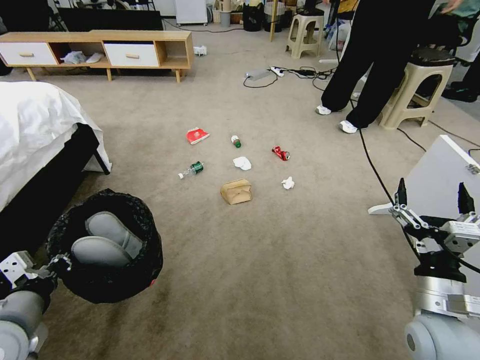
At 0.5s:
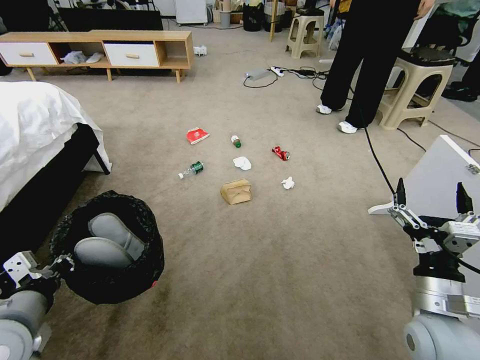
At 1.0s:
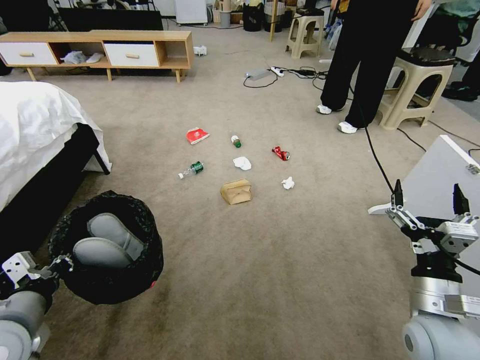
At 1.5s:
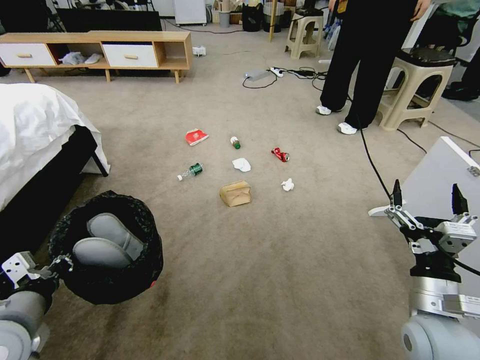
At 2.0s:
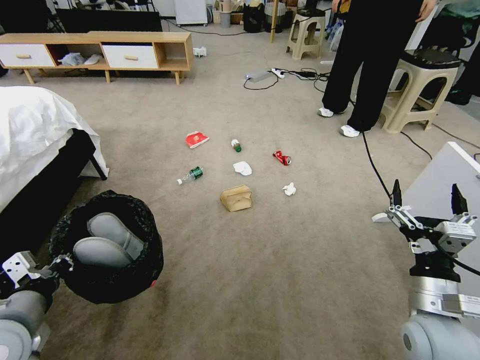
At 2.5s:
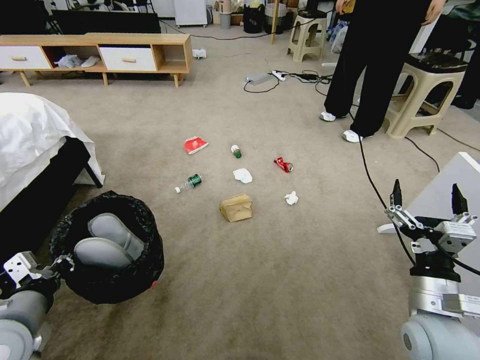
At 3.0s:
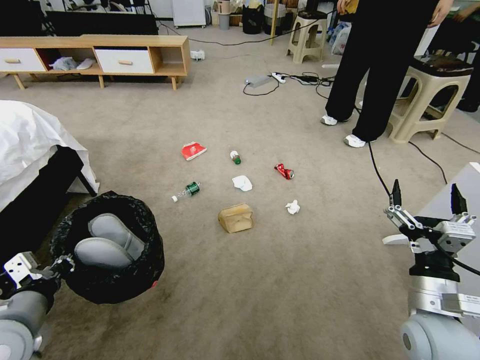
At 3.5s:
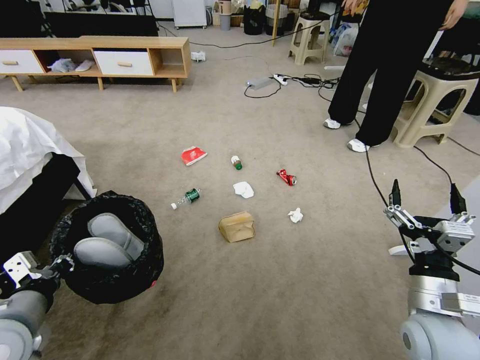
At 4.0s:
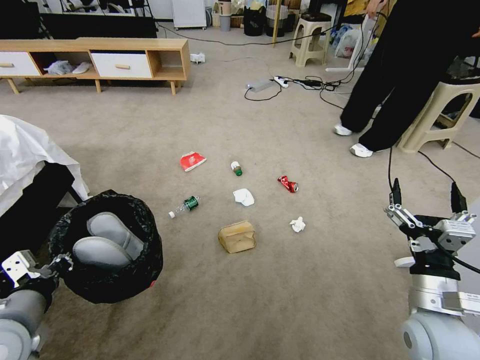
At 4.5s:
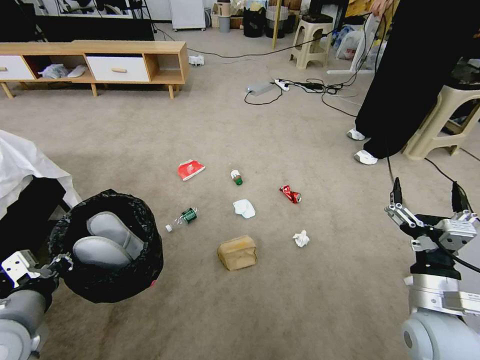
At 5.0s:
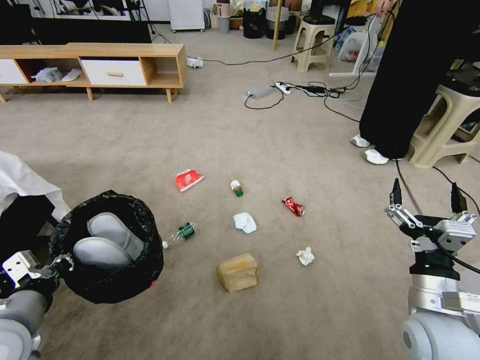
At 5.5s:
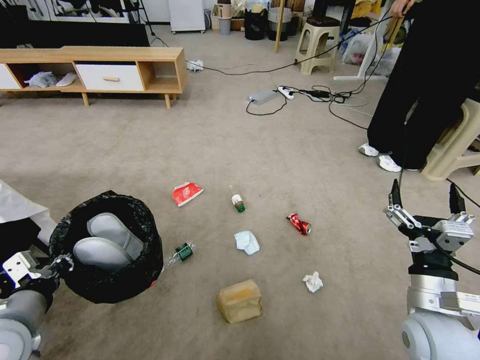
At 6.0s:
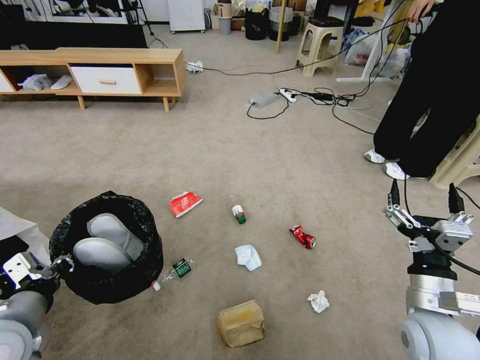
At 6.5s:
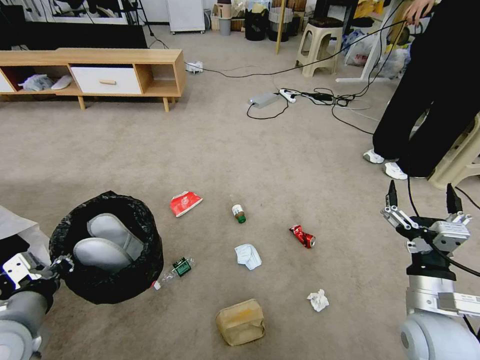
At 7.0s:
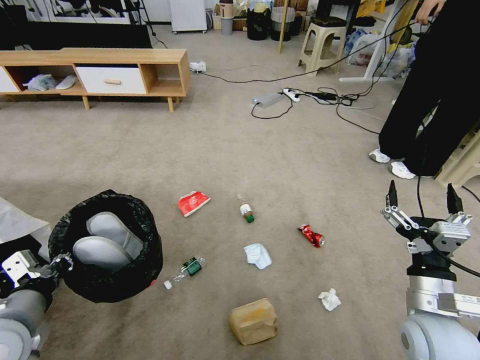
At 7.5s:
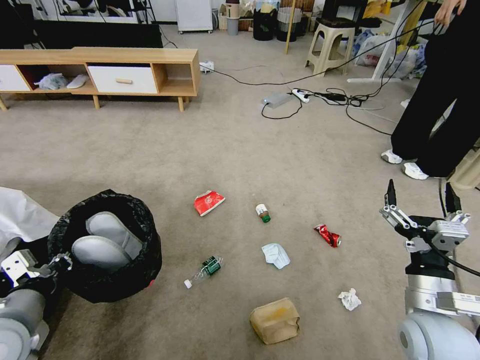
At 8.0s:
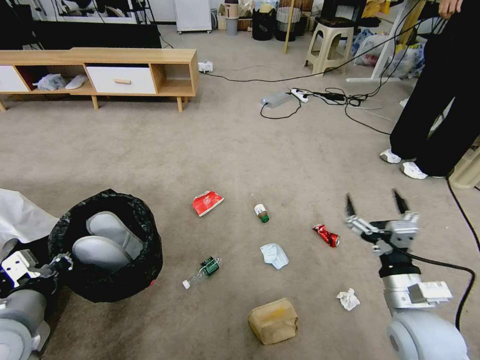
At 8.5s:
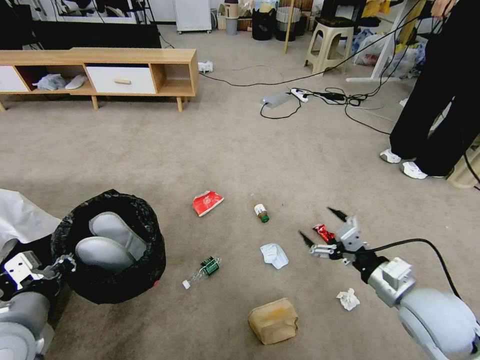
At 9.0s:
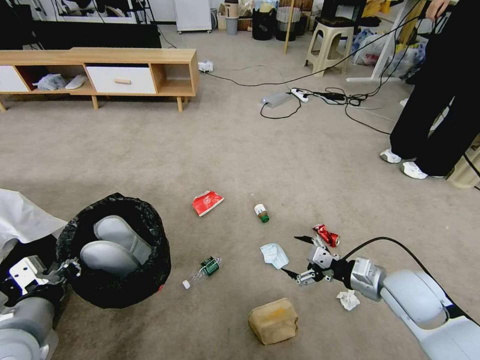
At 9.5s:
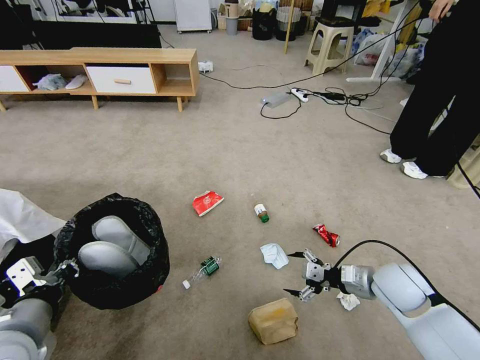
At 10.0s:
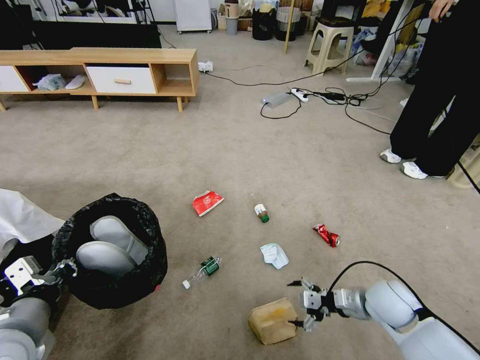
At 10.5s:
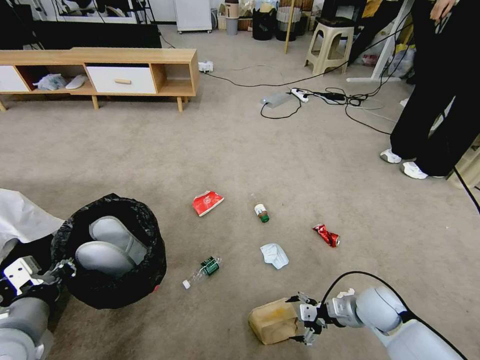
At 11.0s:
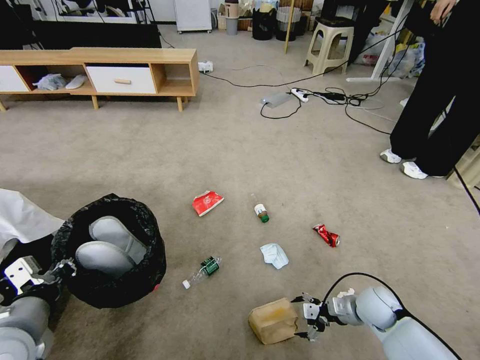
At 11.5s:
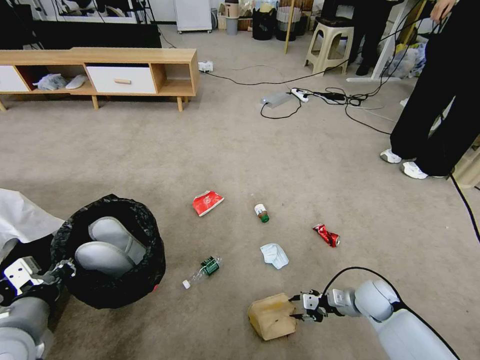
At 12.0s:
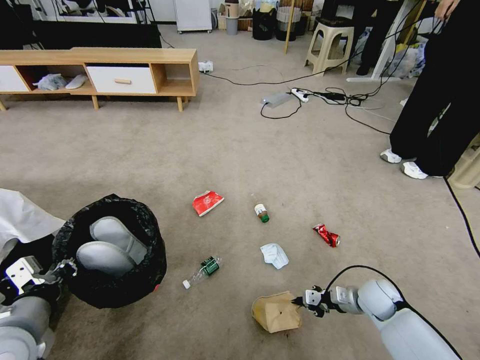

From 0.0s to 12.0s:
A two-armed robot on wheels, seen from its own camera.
Task of the whole recording: Pick up the trash bin and place the garbage on the floor into it.
From 8.0s to 10.0s: The right gripper goes approximately 10 cm forward and downward.
From 10.0s to 12.0s: The right gripper moves downward, about 10 cm, and closes its fingers.

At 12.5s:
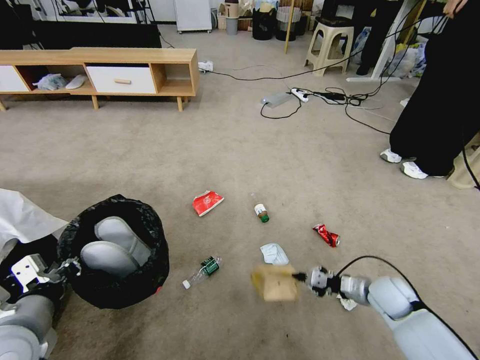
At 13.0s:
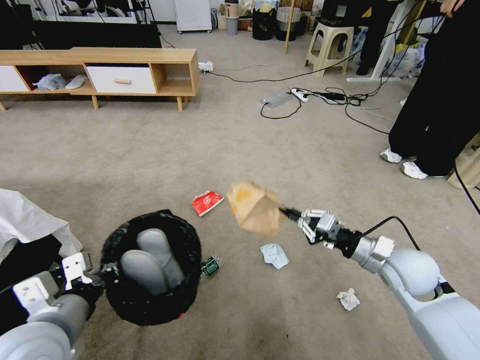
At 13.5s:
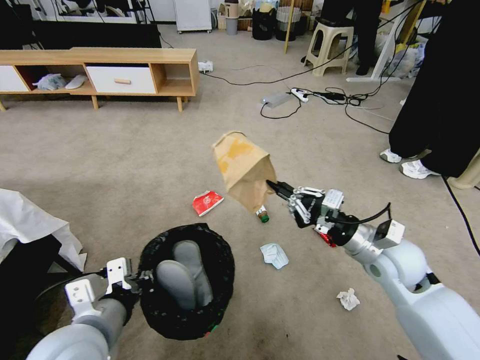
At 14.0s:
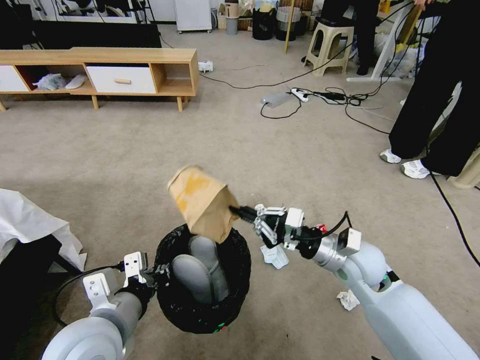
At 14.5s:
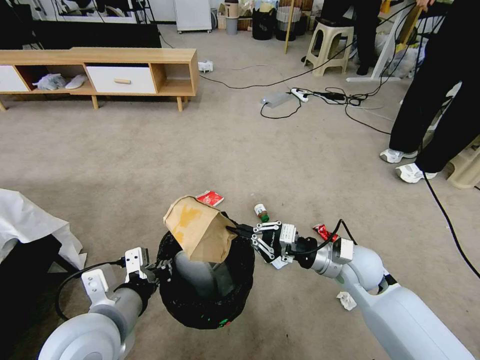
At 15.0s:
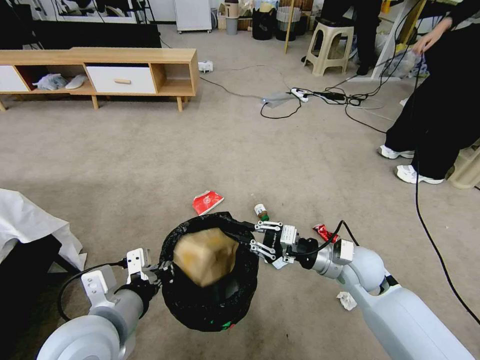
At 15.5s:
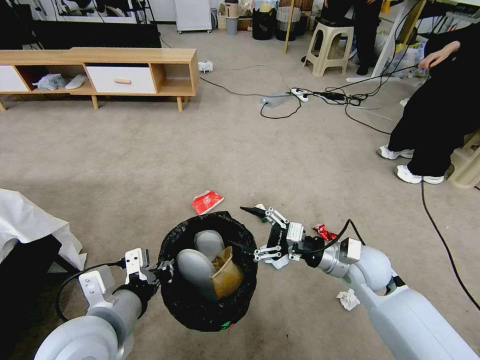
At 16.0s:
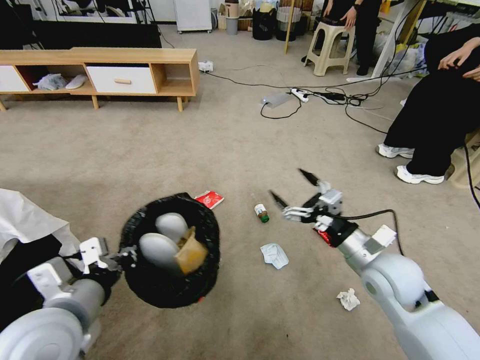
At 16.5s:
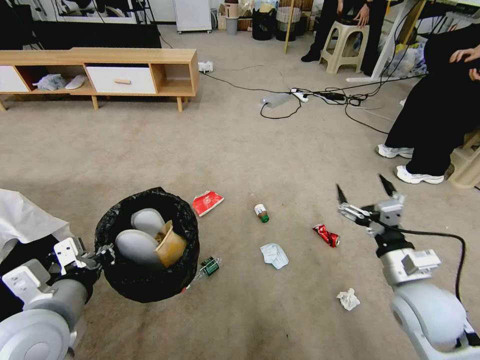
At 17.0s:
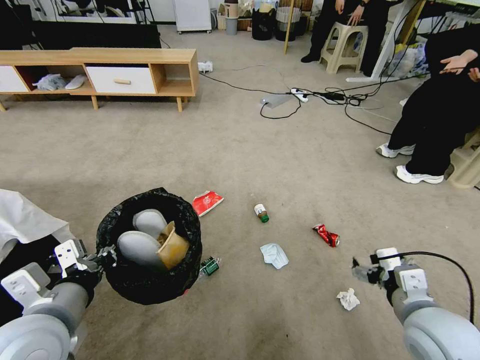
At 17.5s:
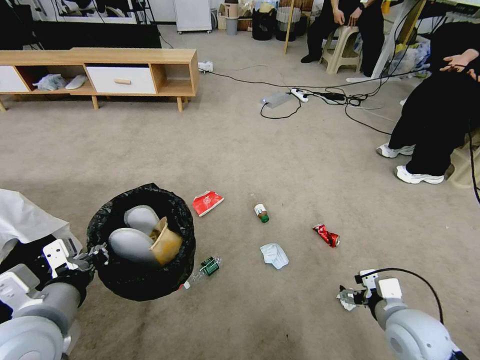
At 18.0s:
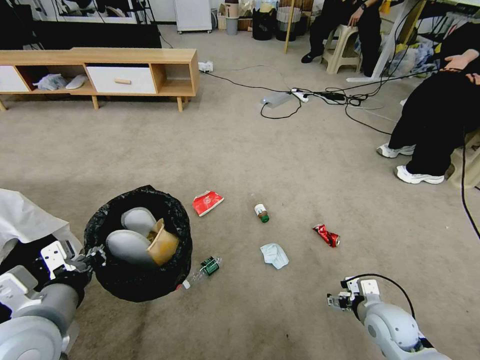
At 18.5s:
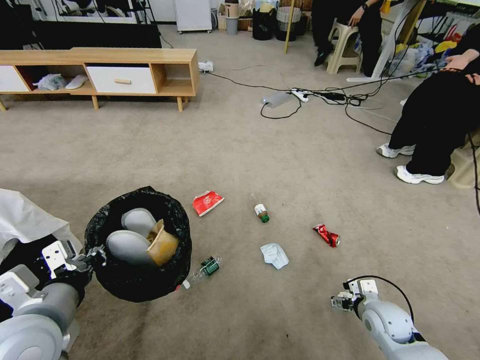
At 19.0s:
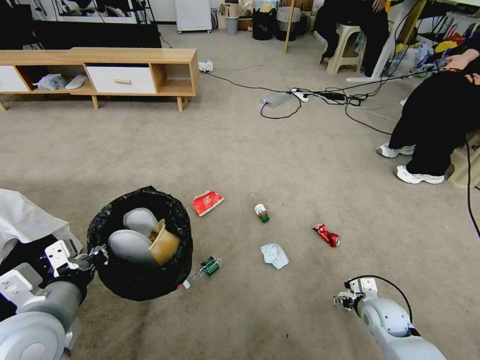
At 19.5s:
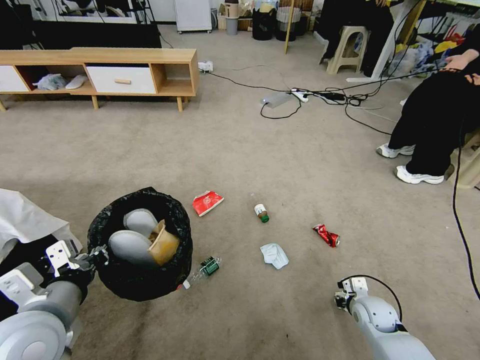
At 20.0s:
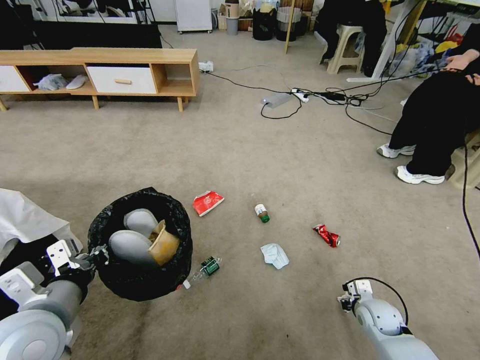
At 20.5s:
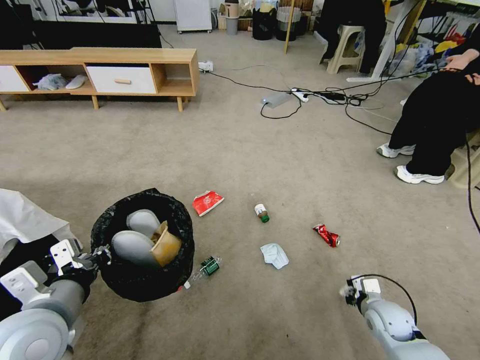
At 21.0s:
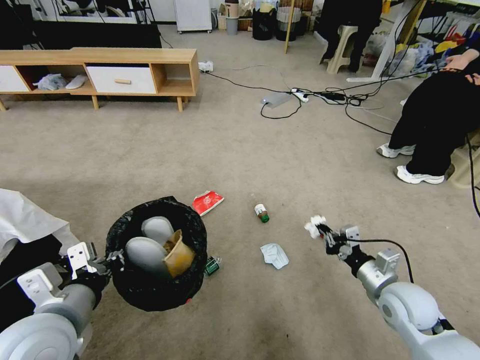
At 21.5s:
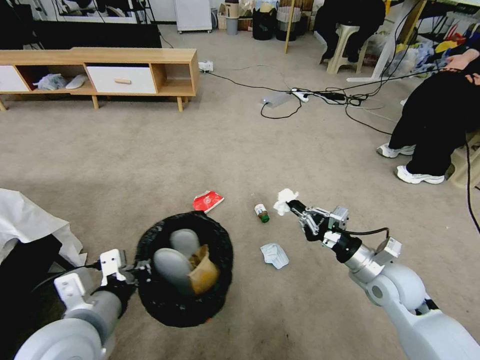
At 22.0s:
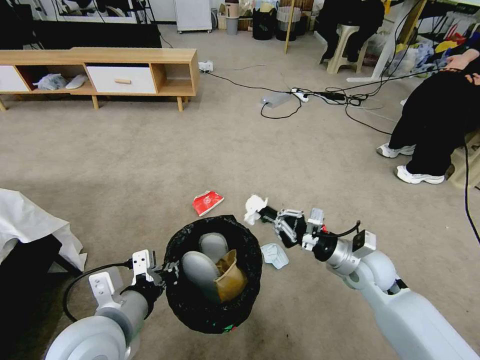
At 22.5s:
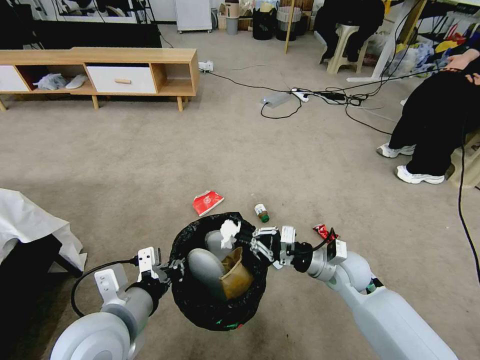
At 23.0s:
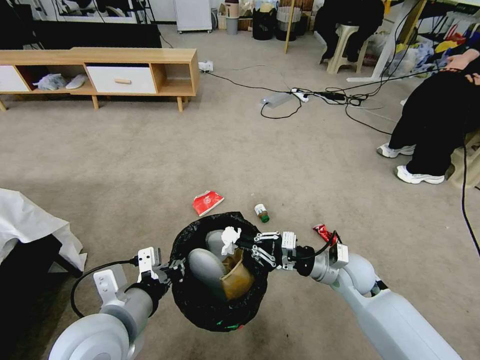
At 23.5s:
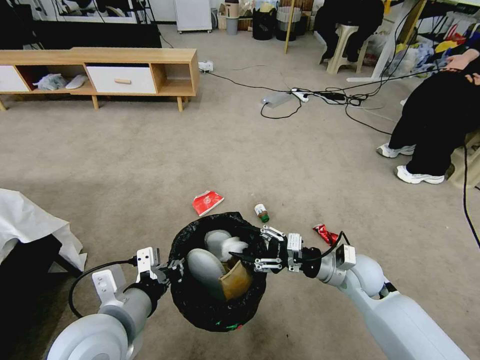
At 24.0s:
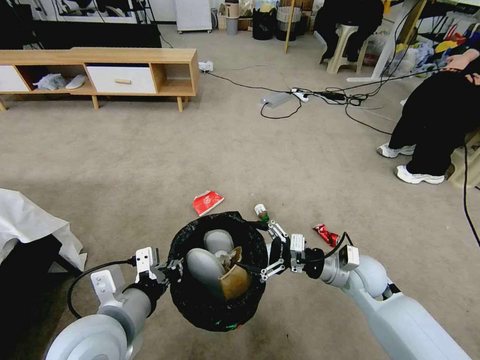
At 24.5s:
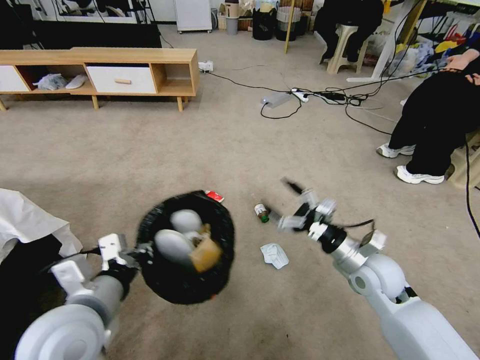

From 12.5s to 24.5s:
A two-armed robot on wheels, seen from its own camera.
Task of the whole recording: Pick up the trash bin and place the garbage on the floor into it.
From 12.5s to 14.5s: The left gripper travels to the right by about 10 cm, while the right gripper travels to the left and upward by approximately 15 cm.
From 14.5s to 16.5s: The right gripper moves backward and to the right, some 10 cm, and opens up. Meanwhile the left gripper moves to the left, approximately 5 cm.
From 16.5s to 18.5s: The right gripper shifts roughly 20 cm downward.
From 18.5s to 20.5s: The right gripper closes.
From 20.5s to 22.5s: The left gripper goes some 10 cm to the right, while the right gripper shifts roughly 20 cm to the left, upward and forward.
From 22.5s to 24.5s: The right gripper moves about 5 cm, and opens its fingers.

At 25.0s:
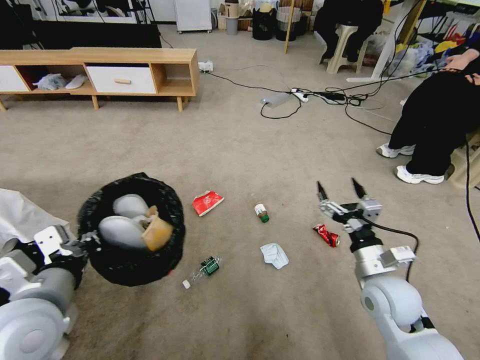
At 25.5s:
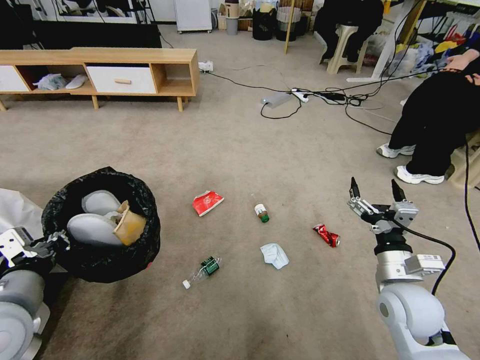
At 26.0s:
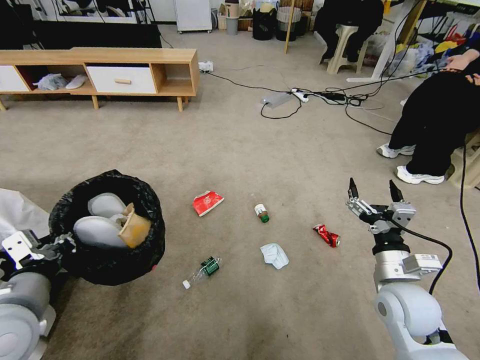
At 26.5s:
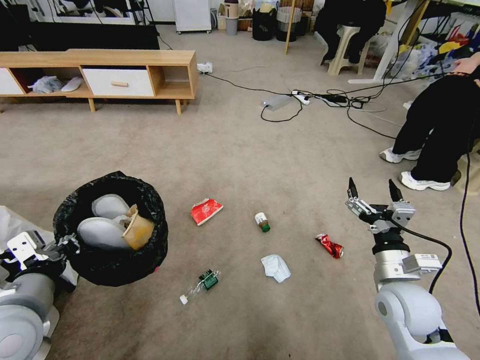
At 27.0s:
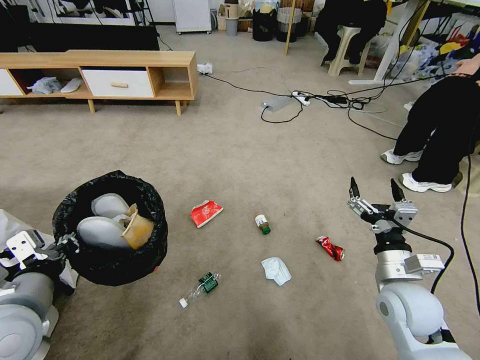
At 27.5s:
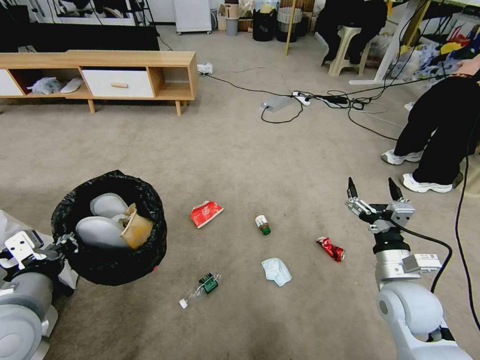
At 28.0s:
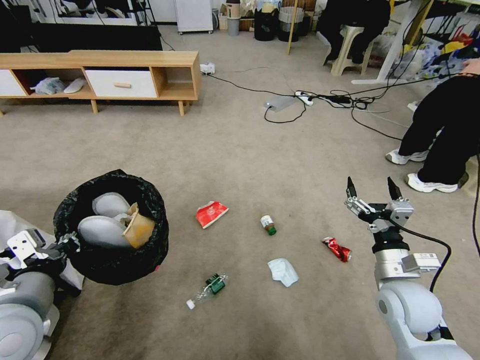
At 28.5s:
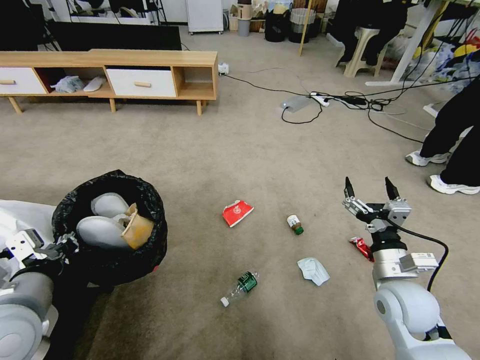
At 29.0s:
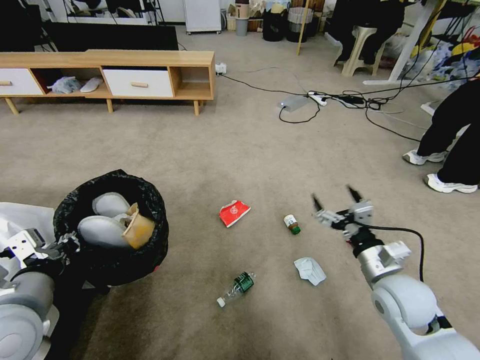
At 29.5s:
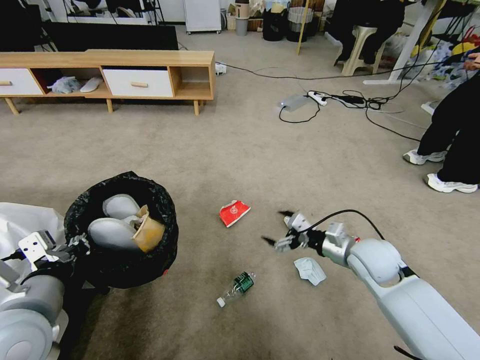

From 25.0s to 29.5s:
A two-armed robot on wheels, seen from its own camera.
Task of the whole recording: Pick up the trash bin and place the garbage on the floor into it.
From 27.0s to 29.5s: The right gripper is displaced forward by some 10 cm.
